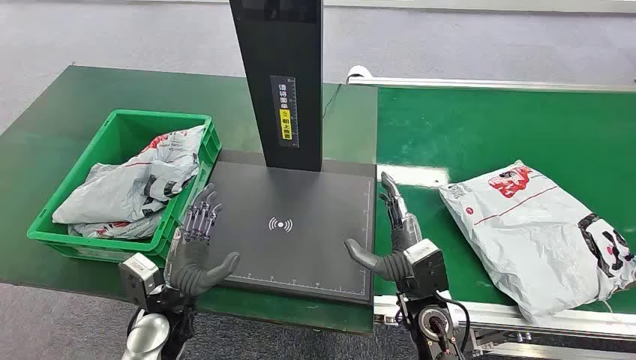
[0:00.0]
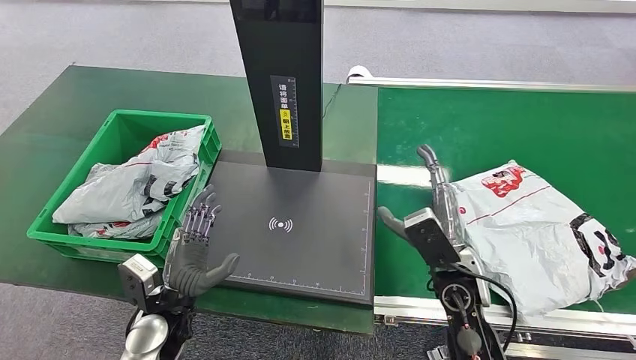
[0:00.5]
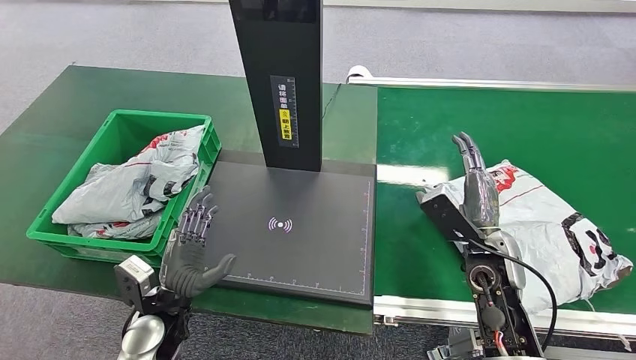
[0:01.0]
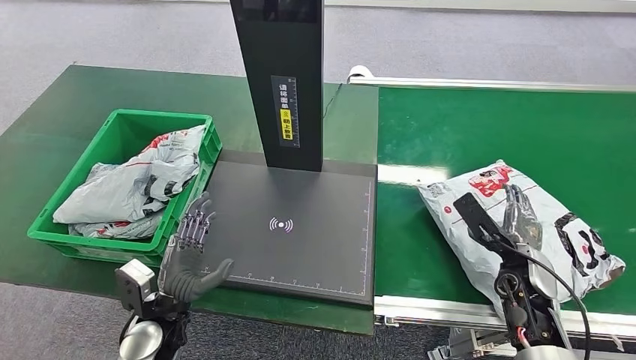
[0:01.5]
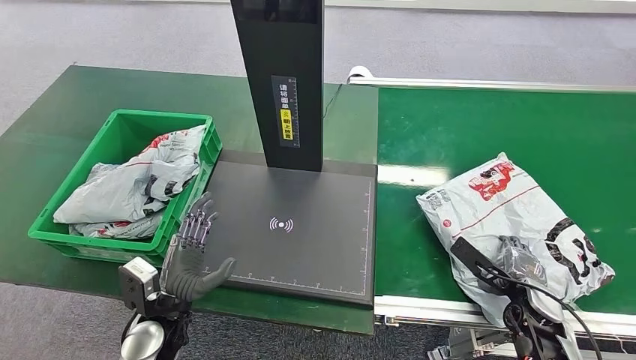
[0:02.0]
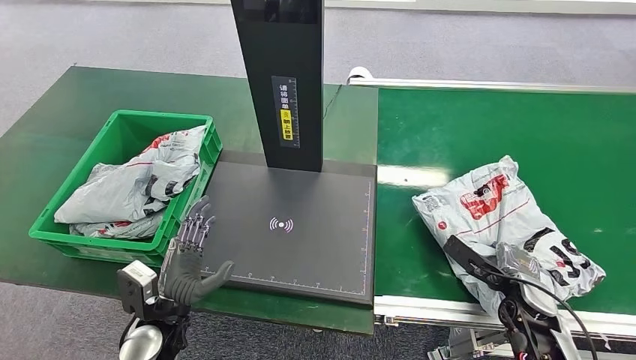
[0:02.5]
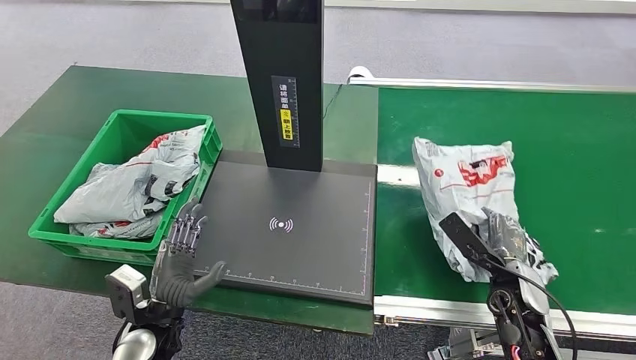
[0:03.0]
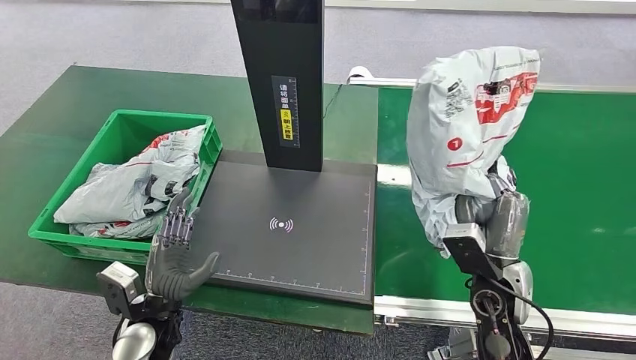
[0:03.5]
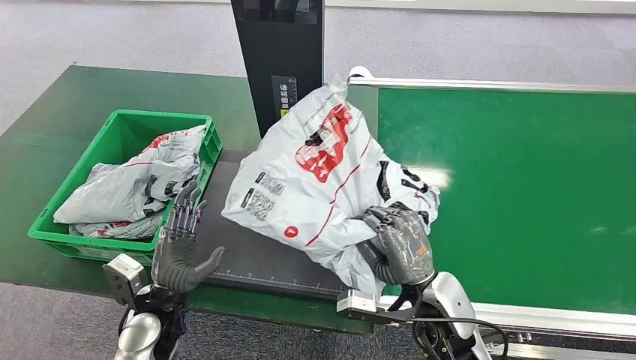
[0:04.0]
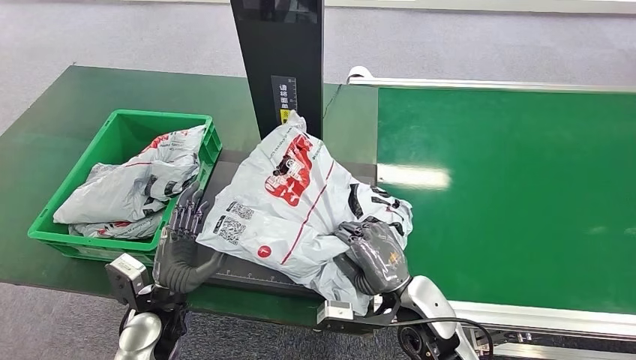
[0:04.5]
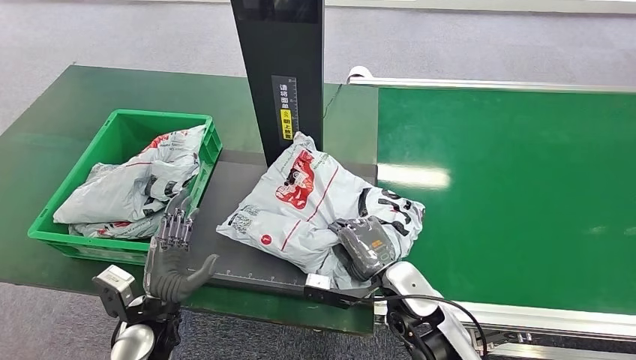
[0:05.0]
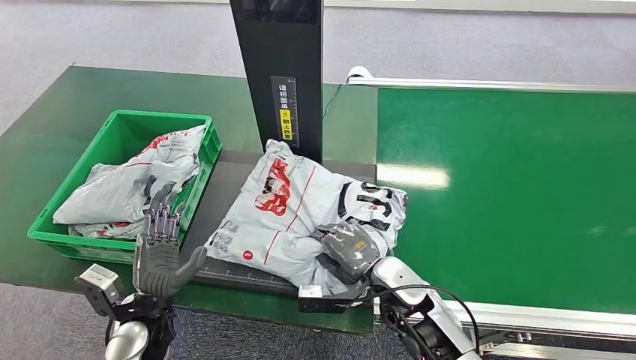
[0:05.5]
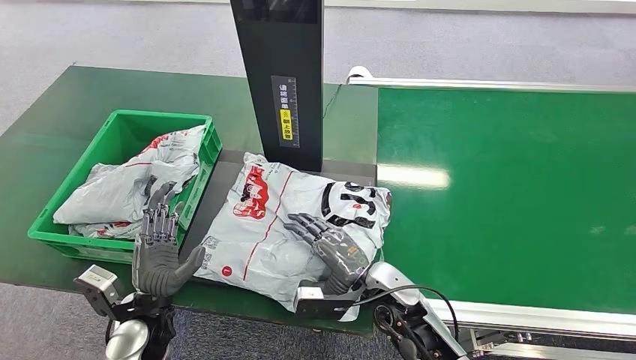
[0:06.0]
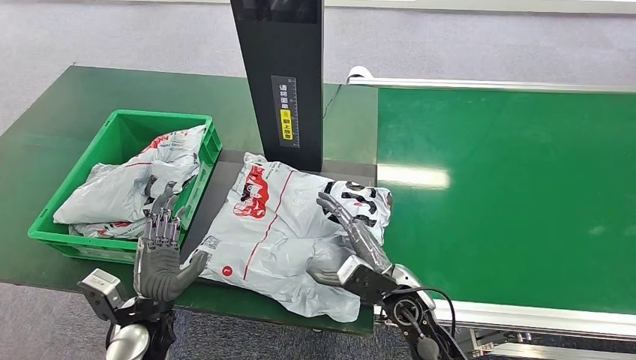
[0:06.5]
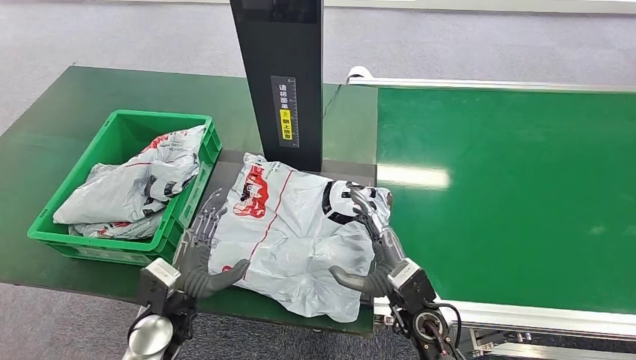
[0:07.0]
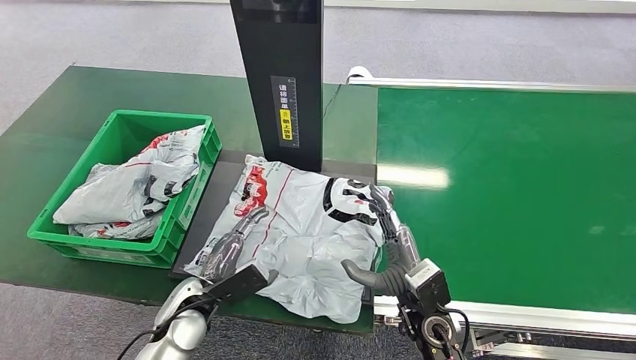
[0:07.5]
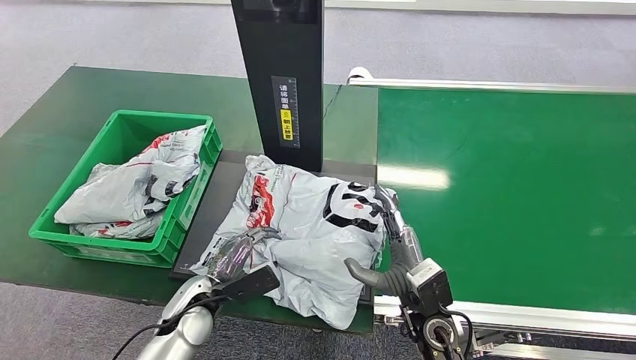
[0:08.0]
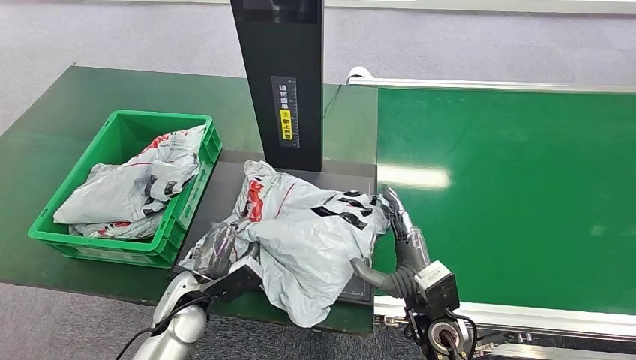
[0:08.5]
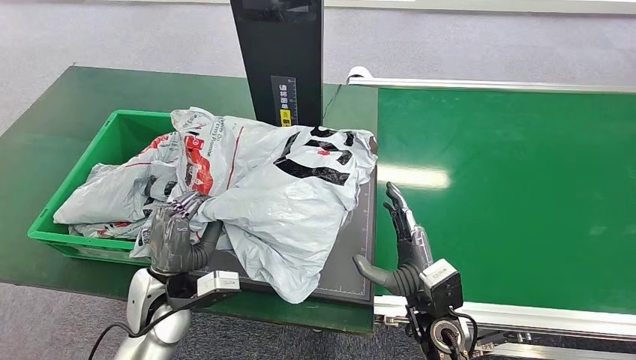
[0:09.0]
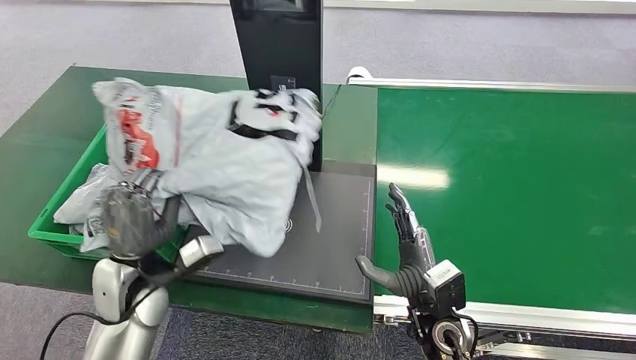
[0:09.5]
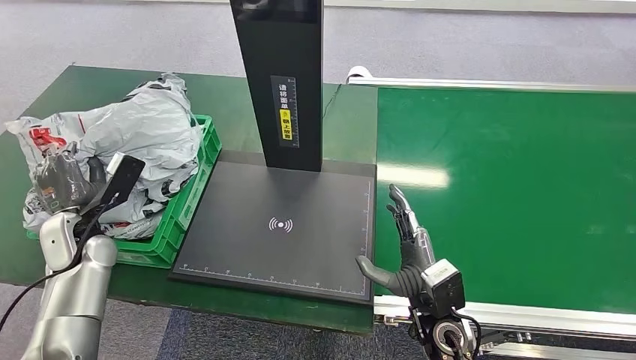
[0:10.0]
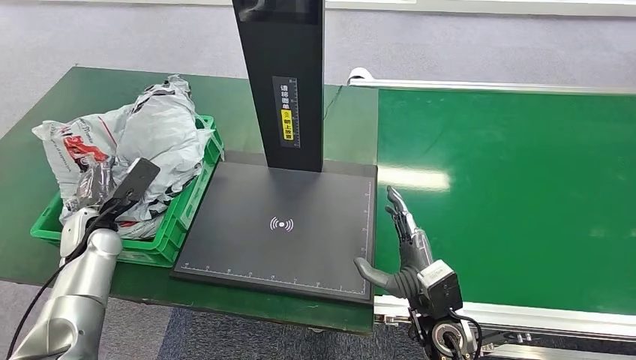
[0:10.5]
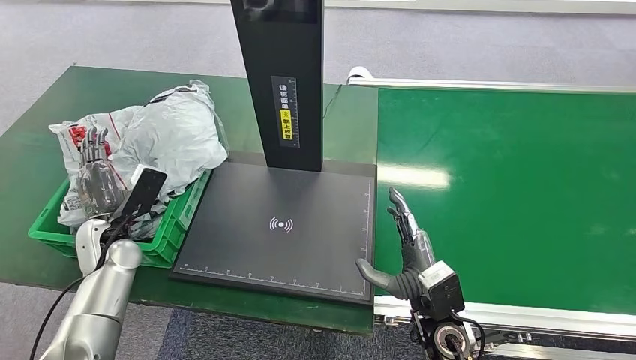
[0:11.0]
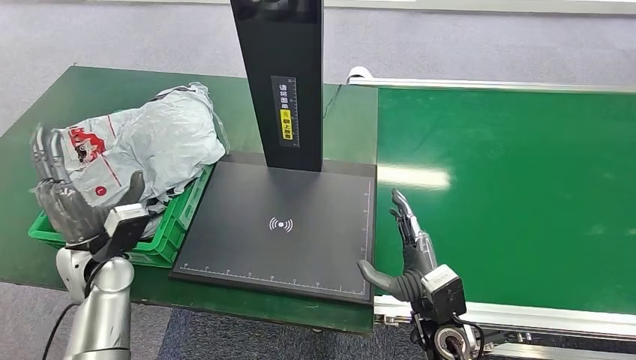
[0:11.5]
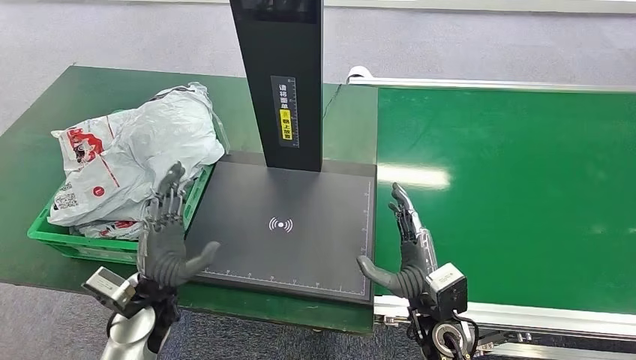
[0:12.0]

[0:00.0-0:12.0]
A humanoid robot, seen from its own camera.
Step, 0:00.0 to 0:03.5: Pick up the package from the conveyor belt.
Step, 0:04.0 to 0:07.0: Place the package onto the inbound machine.
Step, 0:07.5 to 0:09.0: Pick up the package from the inbound machine.
Step, 0:09.5 to 0:12.0: Place the package into the parcel locker.
0:06.0 to 0:08.0: The right hand moves about 5 cm. The left hand shifts by approximately 5 cm.
0:10.0 to 0:12.0: The left hand moves to the right and backward, roughly 20 cm.
